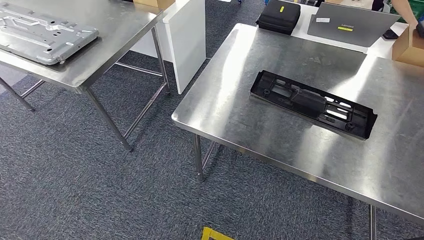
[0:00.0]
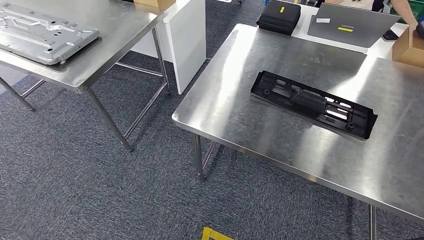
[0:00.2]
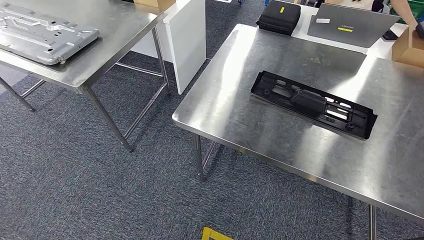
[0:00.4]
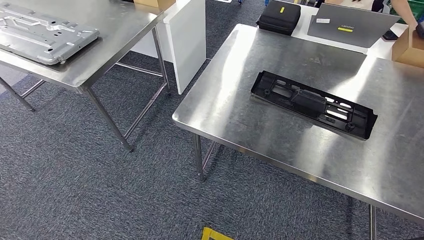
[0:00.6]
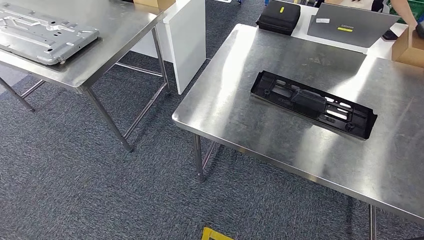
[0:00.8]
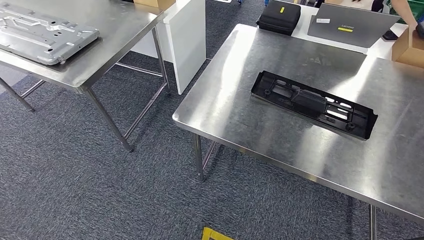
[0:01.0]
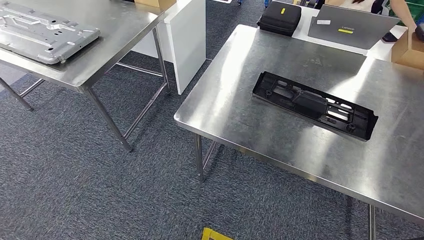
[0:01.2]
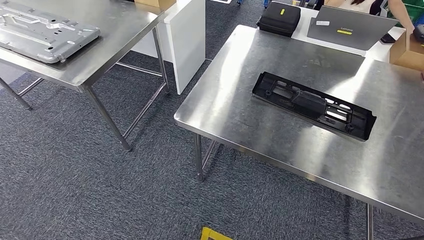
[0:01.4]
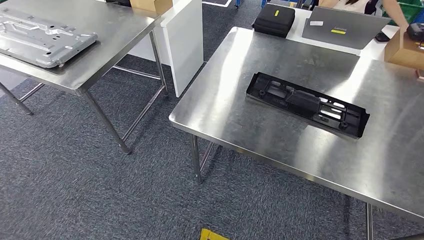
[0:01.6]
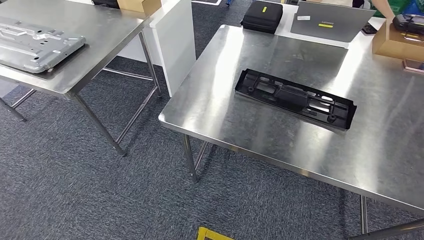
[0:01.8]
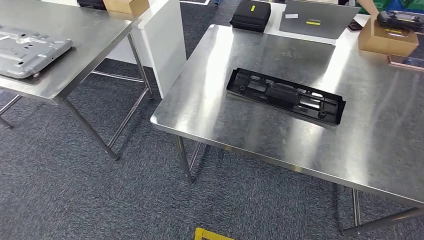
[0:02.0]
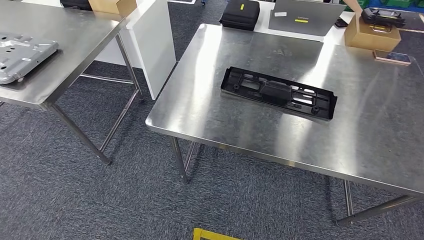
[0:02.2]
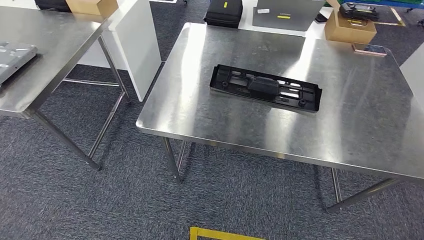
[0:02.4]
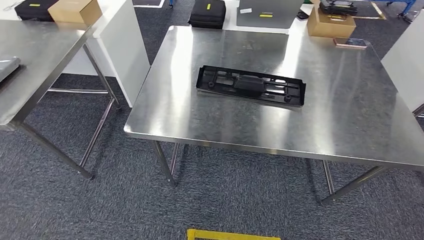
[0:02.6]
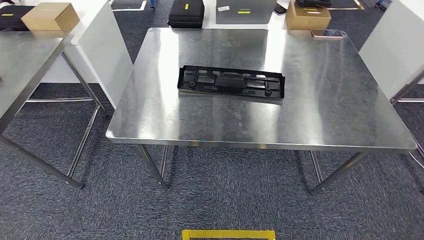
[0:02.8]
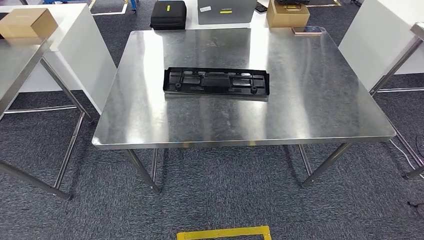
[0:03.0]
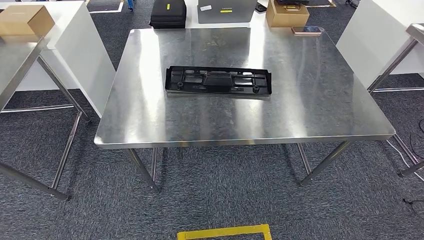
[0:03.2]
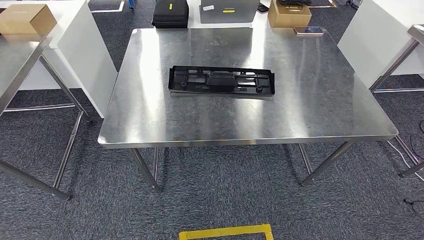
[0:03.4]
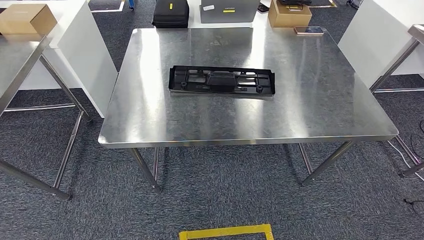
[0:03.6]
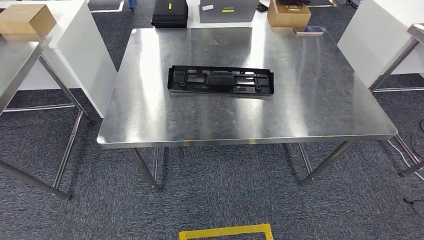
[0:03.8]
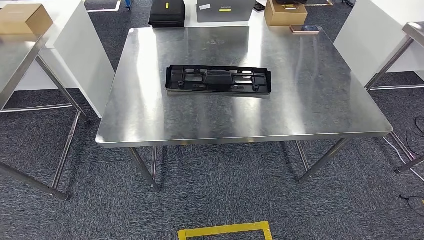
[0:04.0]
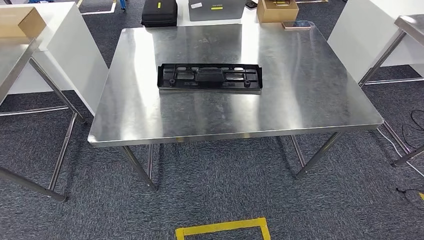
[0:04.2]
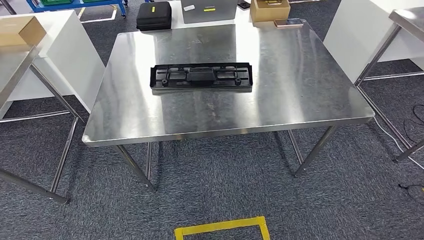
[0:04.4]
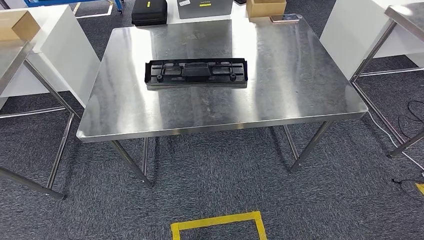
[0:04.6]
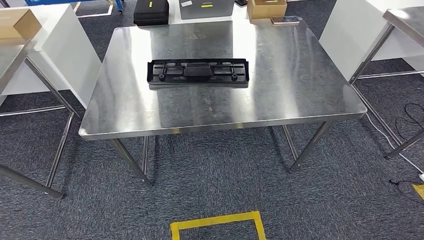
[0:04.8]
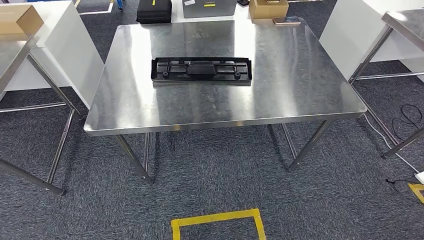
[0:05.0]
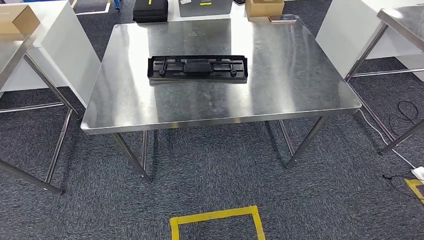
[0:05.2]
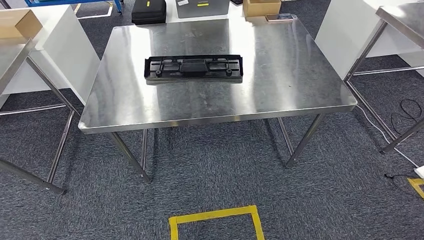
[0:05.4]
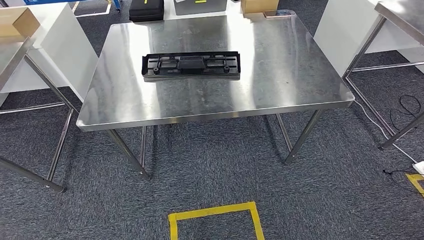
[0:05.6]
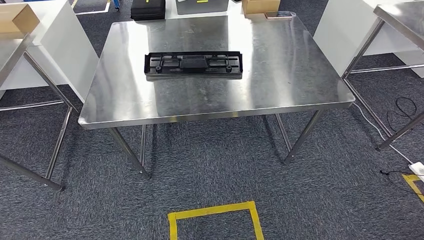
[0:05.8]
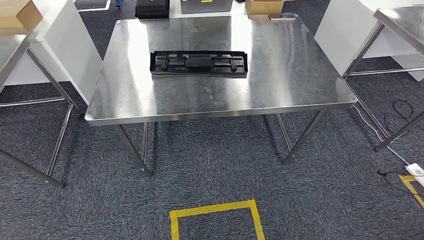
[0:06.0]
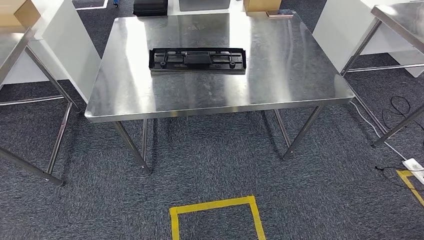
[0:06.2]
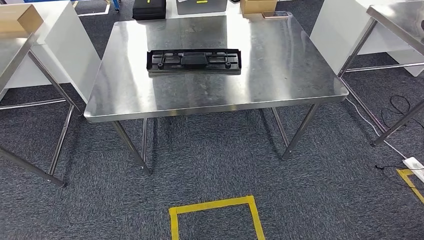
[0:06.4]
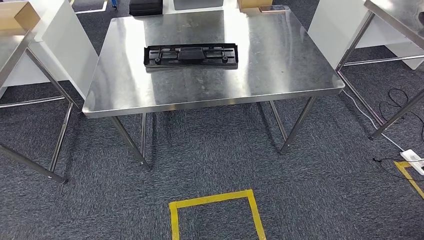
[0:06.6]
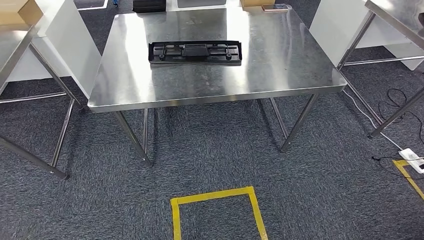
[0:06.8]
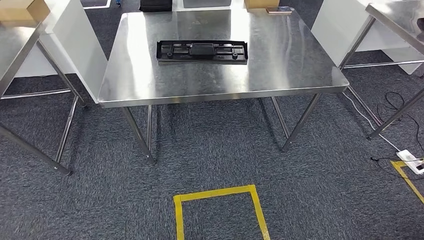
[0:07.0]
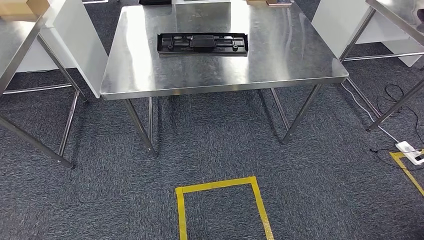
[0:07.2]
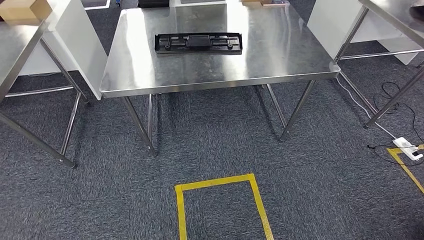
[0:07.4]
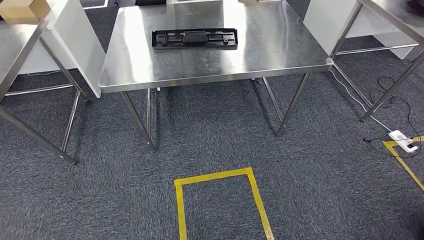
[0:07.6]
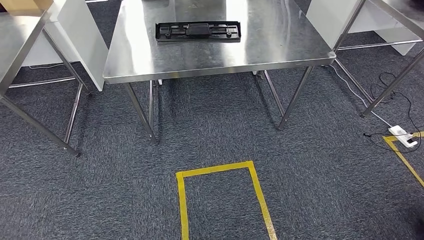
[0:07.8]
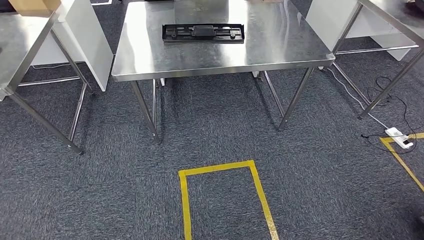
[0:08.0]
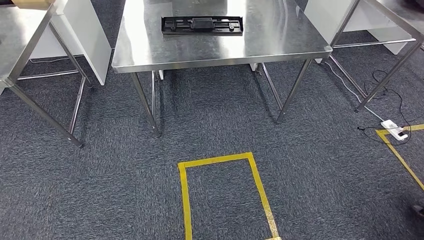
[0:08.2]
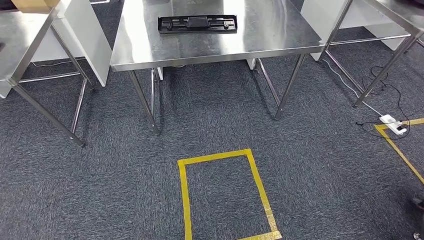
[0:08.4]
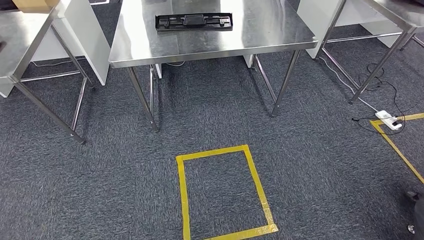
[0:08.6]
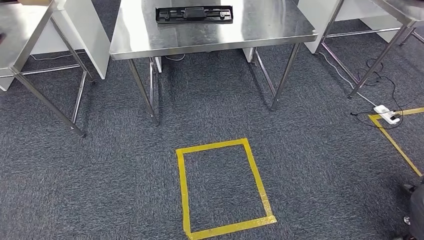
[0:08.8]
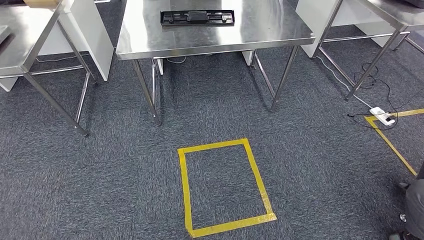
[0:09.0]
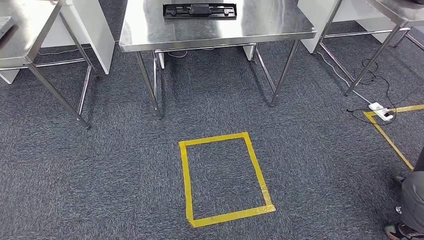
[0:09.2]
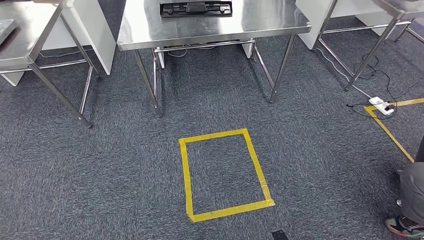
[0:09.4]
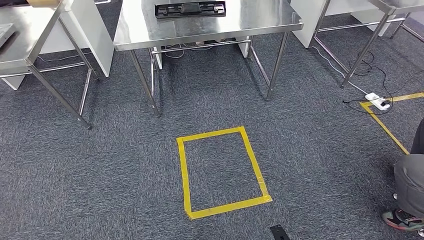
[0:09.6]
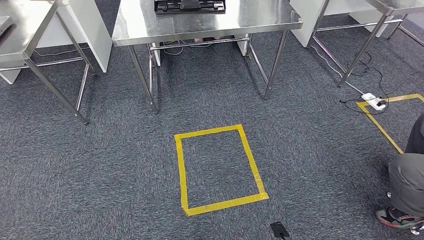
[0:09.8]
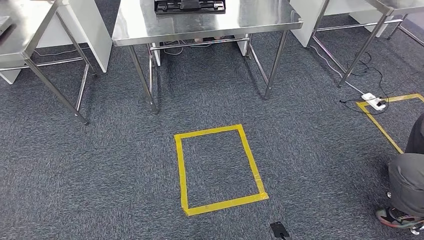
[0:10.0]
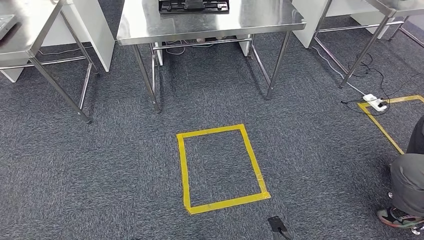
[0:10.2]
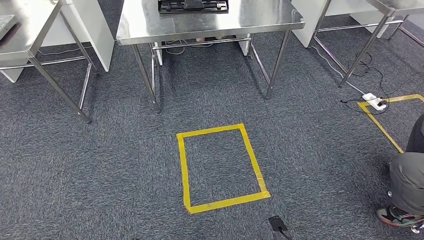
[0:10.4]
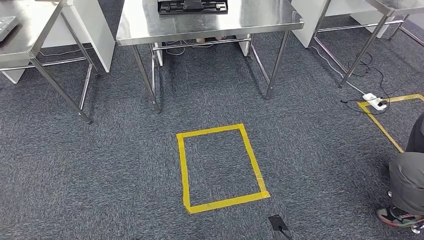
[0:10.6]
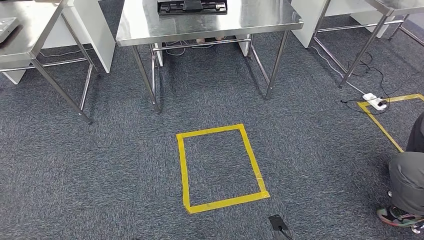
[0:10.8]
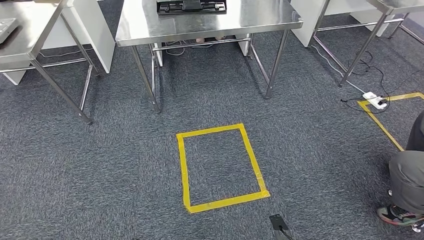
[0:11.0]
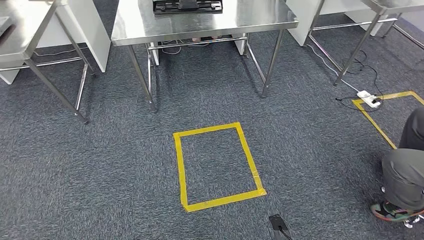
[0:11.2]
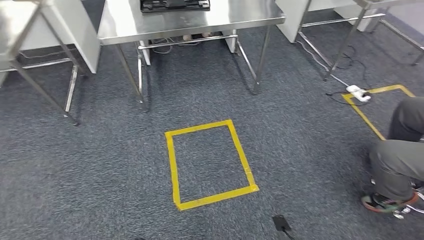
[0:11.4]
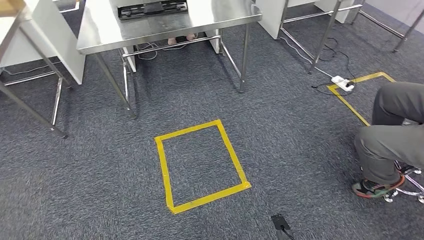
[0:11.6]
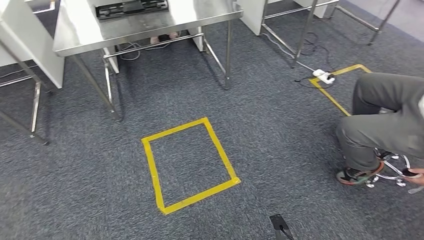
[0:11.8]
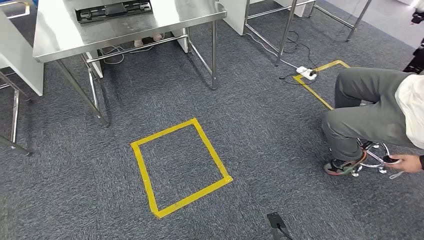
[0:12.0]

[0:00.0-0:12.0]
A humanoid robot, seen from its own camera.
0:00.0 to 0:01.6: The right hand goes roughly 10 cm to the left.

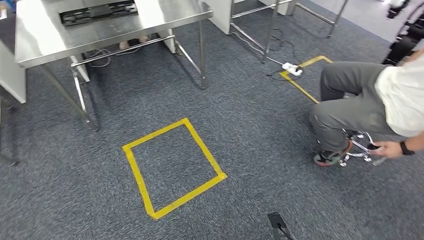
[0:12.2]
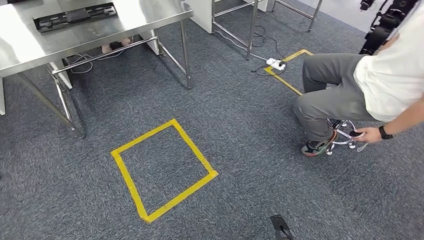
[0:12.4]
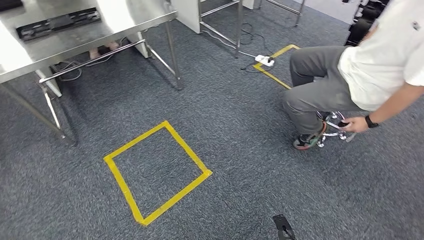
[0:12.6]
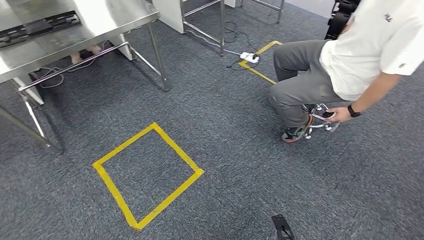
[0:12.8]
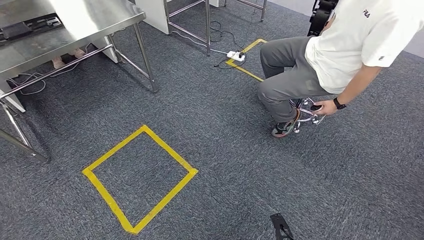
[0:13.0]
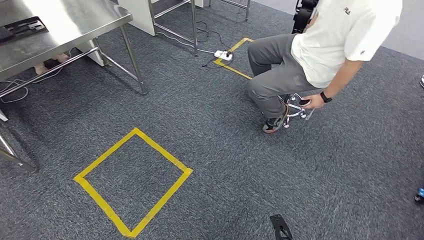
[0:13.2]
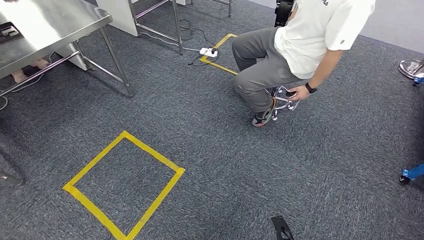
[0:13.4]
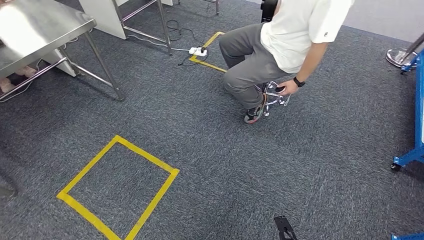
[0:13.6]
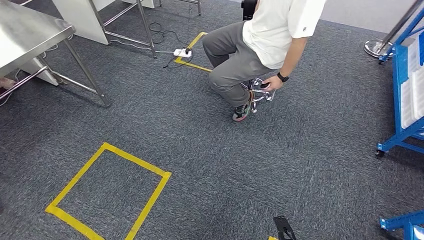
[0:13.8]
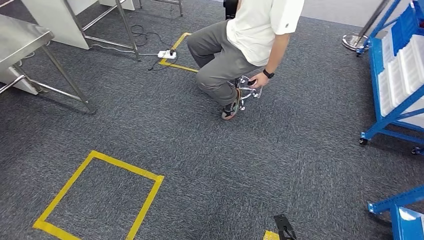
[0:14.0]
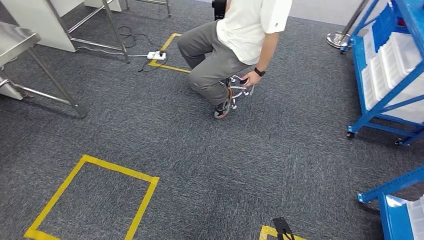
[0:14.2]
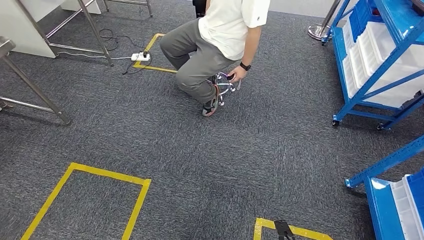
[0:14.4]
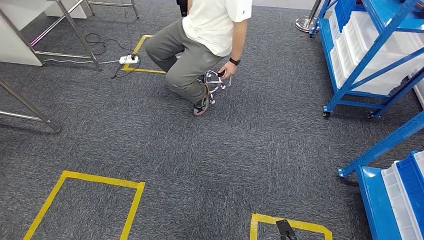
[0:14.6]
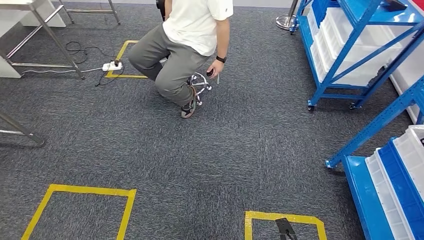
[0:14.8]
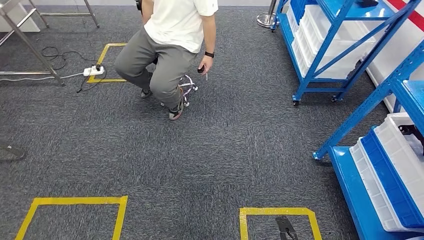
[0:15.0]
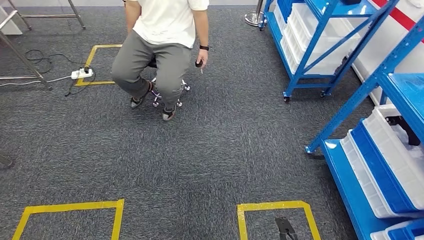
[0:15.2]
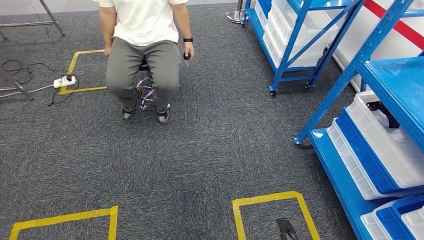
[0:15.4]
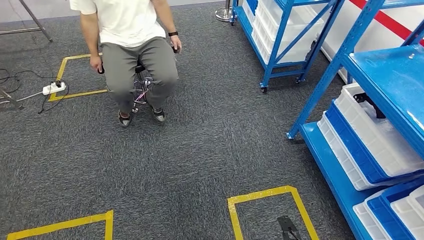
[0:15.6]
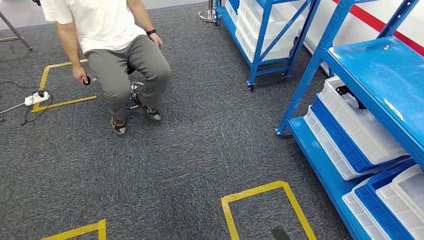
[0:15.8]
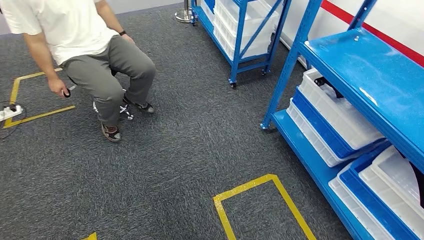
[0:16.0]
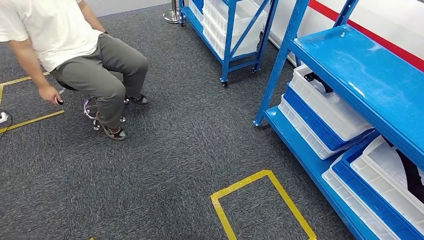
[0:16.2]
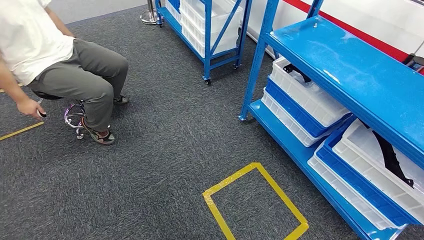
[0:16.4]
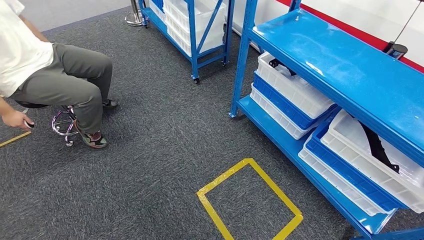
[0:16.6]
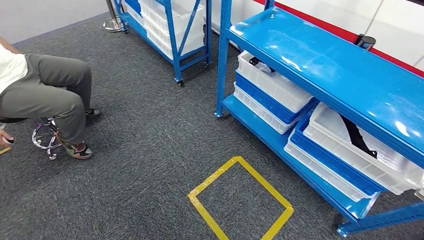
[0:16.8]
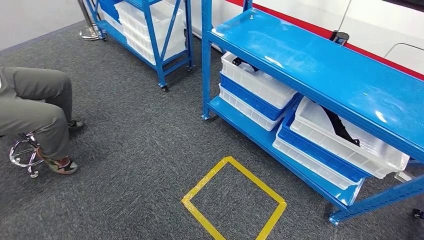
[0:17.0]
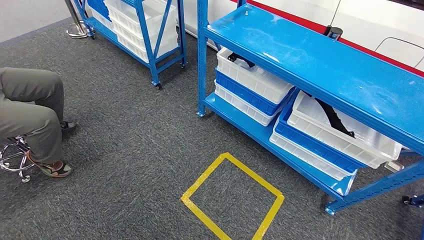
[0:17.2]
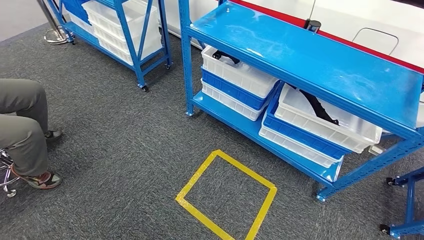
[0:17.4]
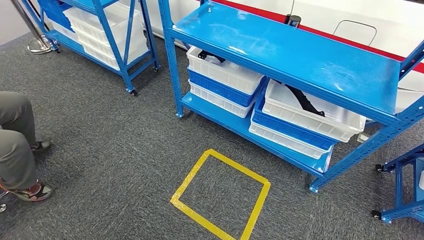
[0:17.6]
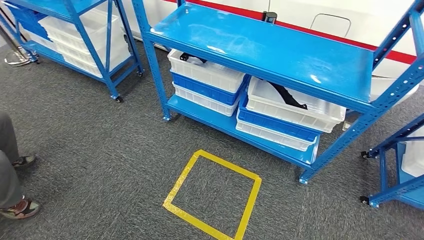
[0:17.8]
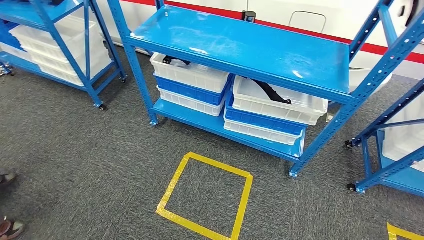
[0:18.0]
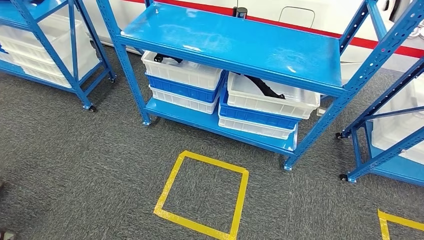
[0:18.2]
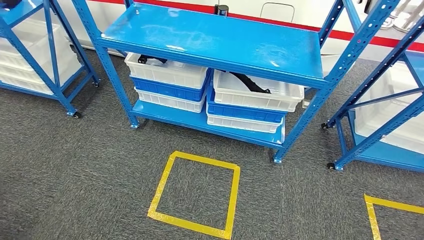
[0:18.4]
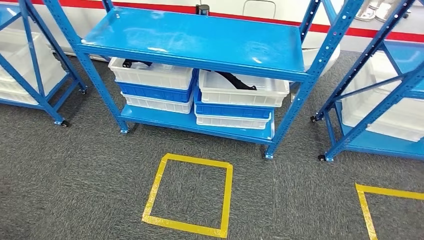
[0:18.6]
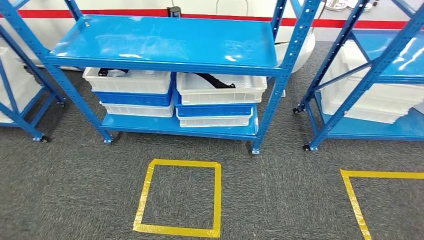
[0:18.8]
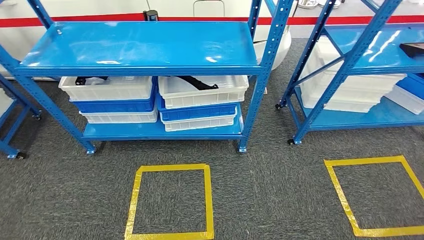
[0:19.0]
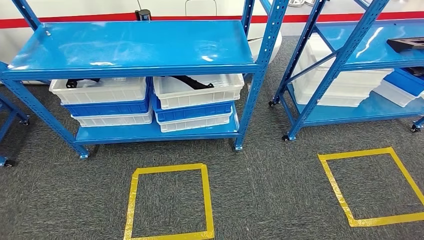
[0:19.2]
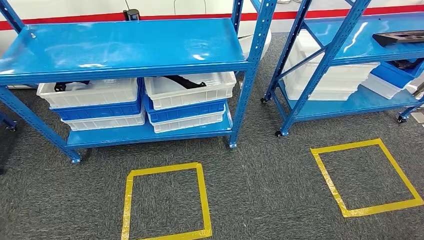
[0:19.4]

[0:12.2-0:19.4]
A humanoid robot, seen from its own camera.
Step, 0:12.2 to 0:19.2: Return to the initial position at the shelf.
